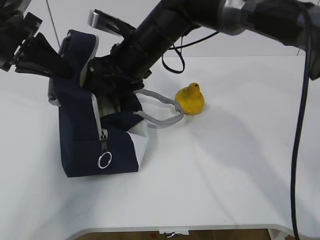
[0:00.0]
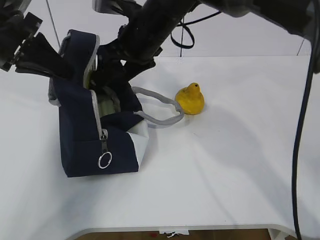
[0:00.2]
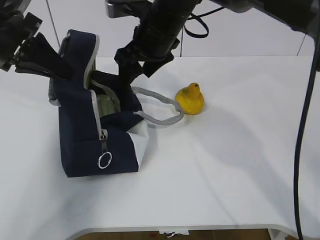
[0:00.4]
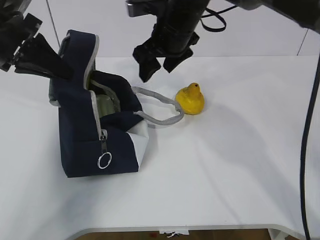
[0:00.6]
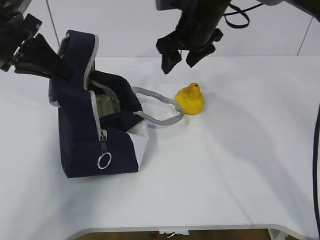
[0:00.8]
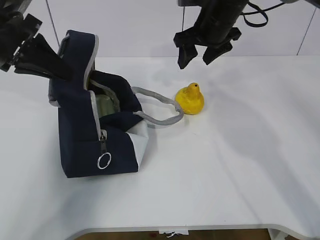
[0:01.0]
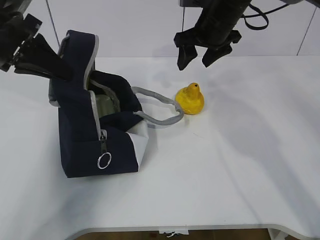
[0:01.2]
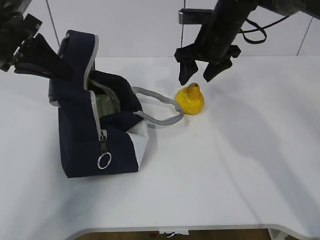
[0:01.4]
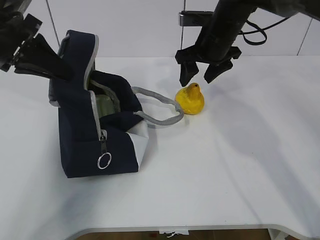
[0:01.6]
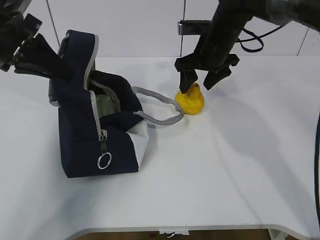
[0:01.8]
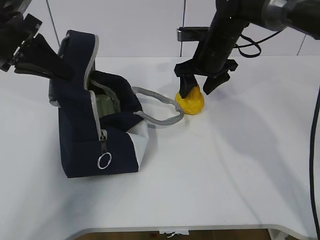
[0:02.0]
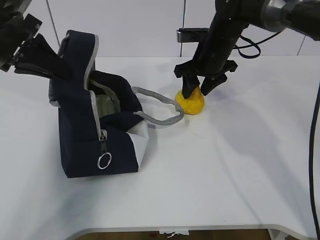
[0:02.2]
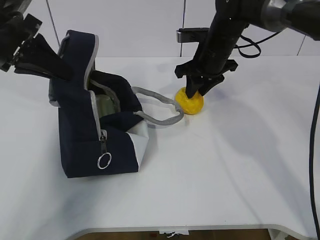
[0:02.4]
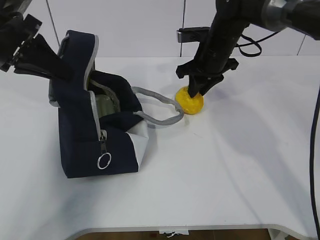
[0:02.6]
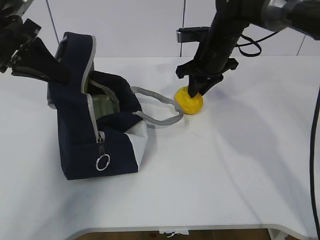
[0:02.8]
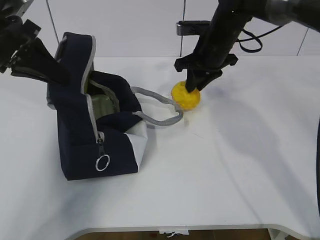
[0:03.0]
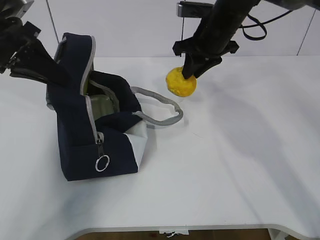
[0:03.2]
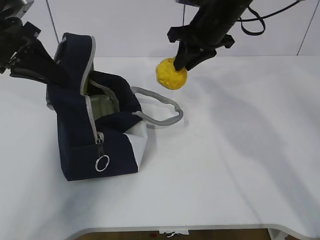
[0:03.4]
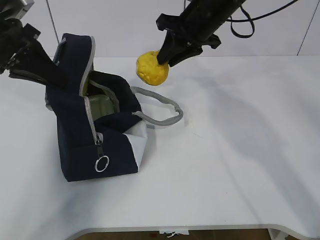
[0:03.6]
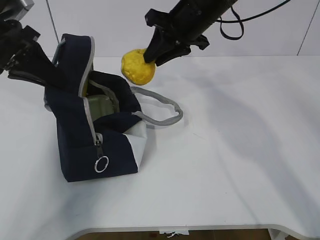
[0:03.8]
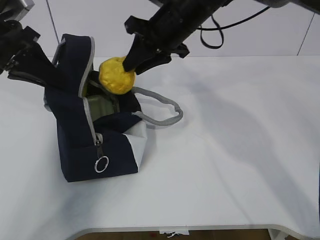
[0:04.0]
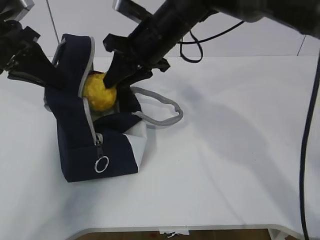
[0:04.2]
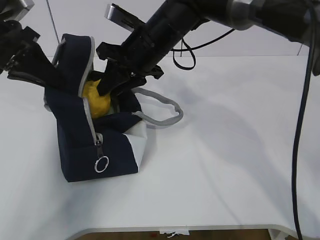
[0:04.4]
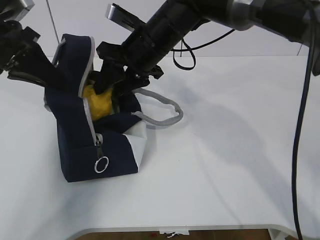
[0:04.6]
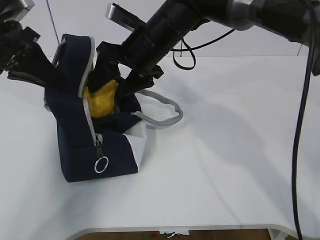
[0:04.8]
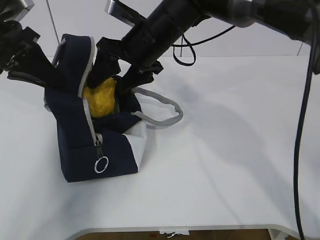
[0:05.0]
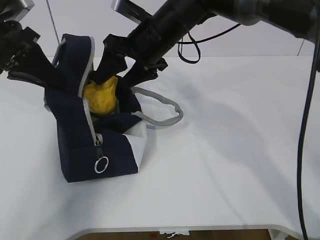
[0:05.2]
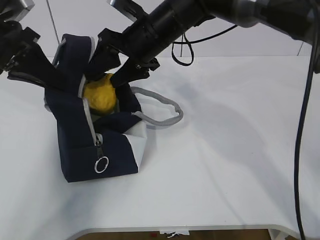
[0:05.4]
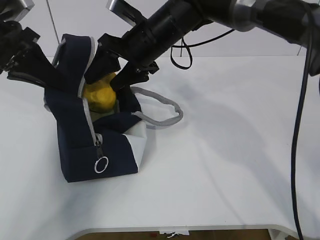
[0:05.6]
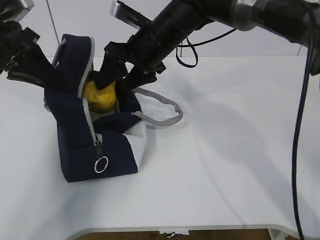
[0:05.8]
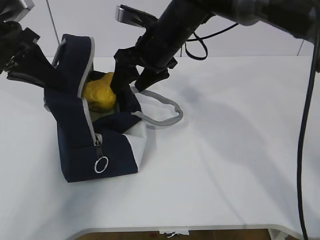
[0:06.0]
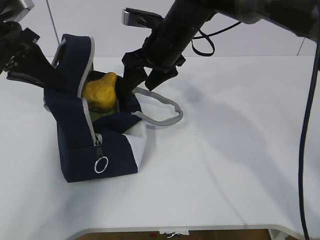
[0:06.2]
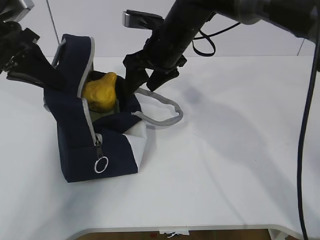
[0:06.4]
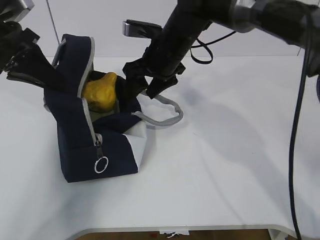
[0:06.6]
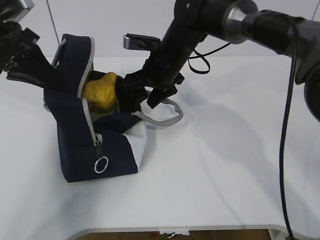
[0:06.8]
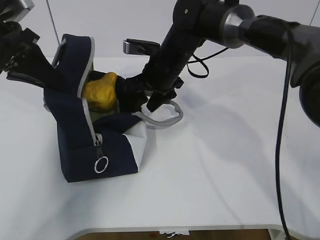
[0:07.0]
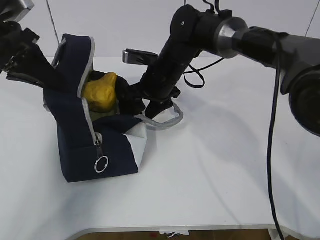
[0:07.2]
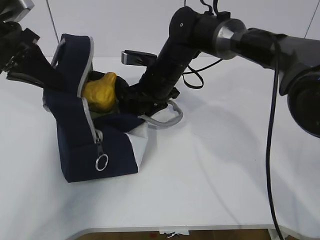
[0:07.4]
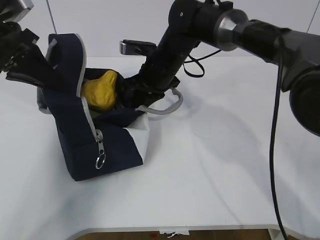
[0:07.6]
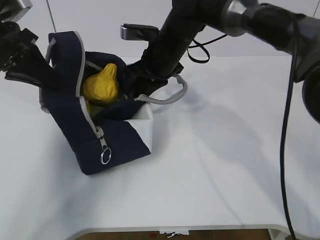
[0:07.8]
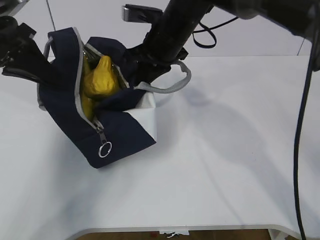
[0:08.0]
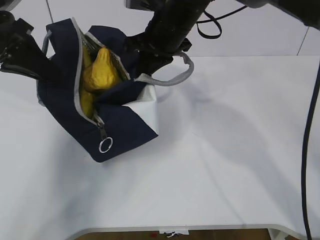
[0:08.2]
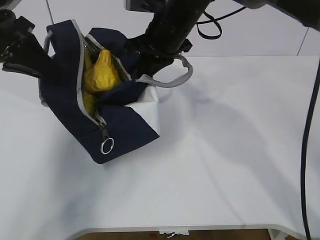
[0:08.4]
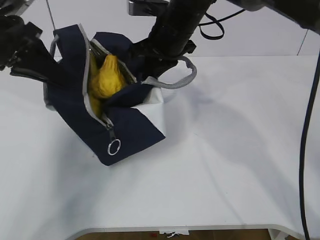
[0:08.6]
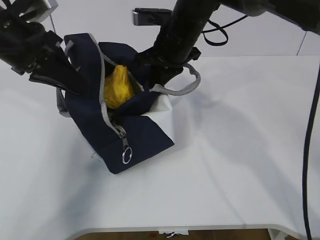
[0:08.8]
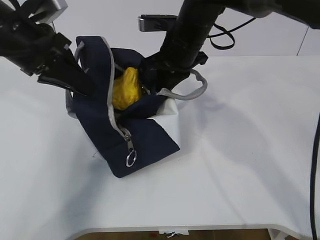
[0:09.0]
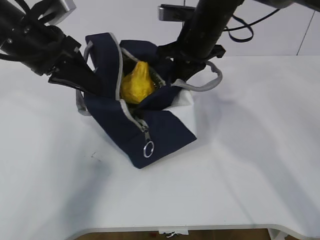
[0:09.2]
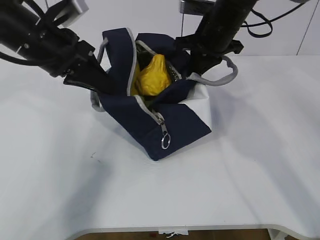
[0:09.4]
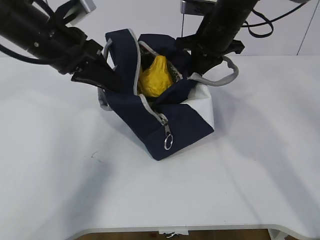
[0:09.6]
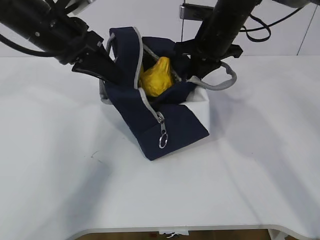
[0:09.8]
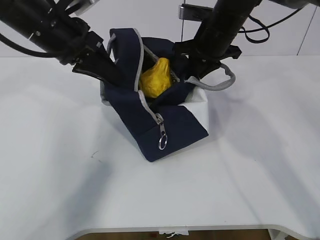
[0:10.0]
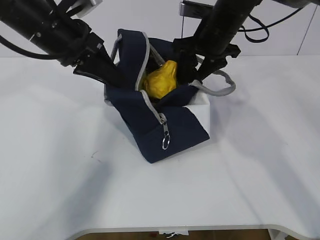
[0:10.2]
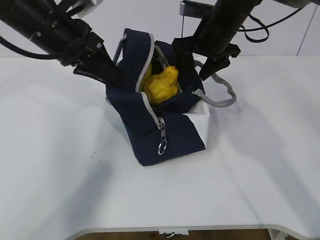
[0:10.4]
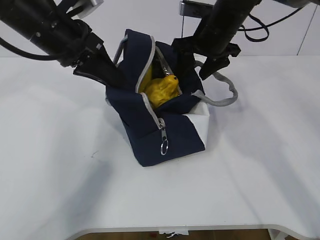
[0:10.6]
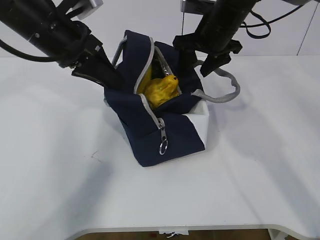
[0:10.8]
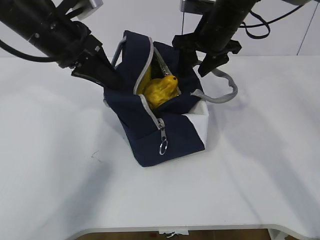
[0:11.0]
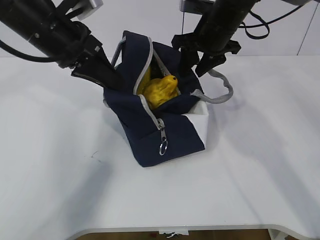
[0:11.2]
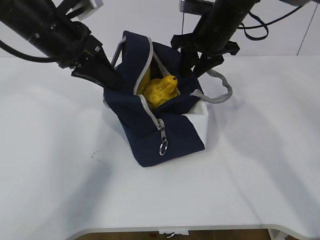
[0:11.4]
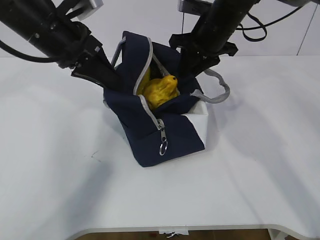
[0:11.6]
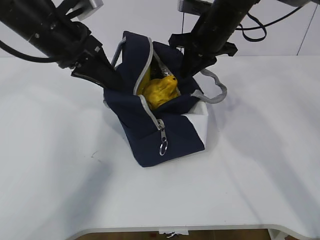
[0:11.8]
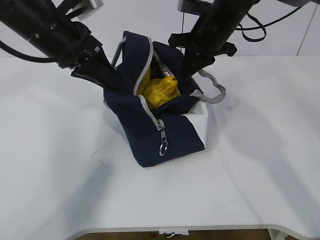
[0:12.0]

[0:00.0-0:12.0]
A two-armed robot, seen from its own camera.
Step, 0:01.0 to 0:05.6: Grab the lunch bag with your right hand.
Step, 0:05.8 to 0:09.8: Move the lunch bag to the right.
0:00.0 to 0:01.6: The right gripper shifts approximately 15 cm to the right and forward.
0:01.6 to 0:03.0: The right gripper closes.
0:03.0 to 0:04.4: The right gripper moves to the left and backward, approximately 15 cm.
0:04.4 to 0:06.0: The right gripper opens.
0:06.0 to 0:07.6: The right gripper goes roughly 5 cm downward, and closes.
0:07.6 to 0:09.0: The right gripper moves upward, roughly 5 cm. The left gripper goes approximately 5 cm to the right.
0:09.0 to 0:10.4: The right gripper is displaced to the right by roughly 5 cm, and opens up. The left gripper shifts by roughly 5 cm.
0:10.4 to 0:12.0: The right gripper closes up.

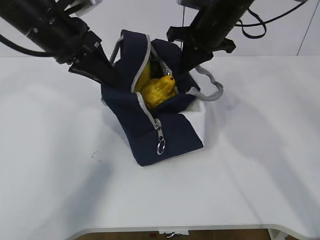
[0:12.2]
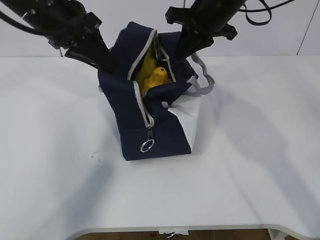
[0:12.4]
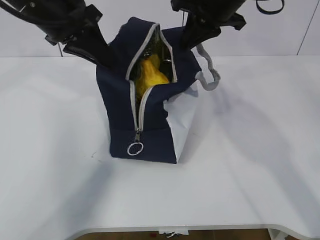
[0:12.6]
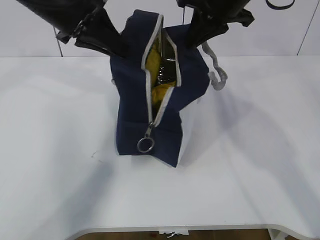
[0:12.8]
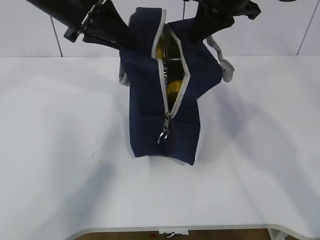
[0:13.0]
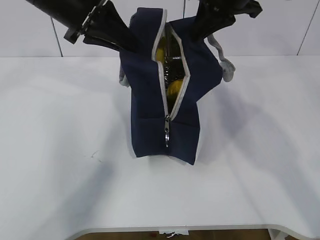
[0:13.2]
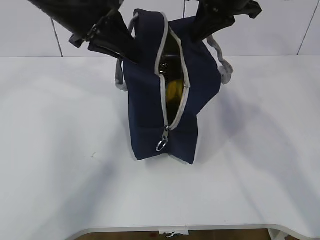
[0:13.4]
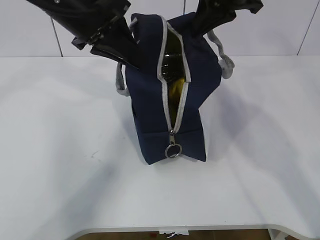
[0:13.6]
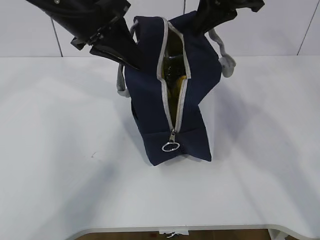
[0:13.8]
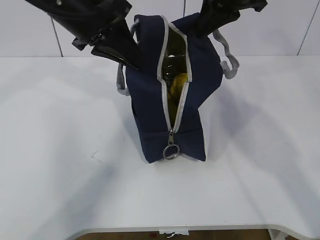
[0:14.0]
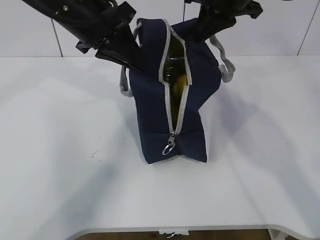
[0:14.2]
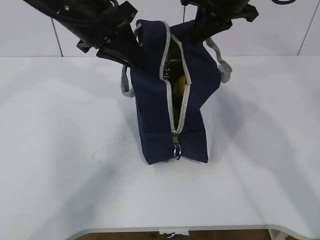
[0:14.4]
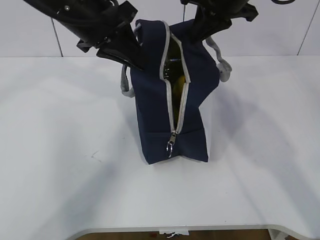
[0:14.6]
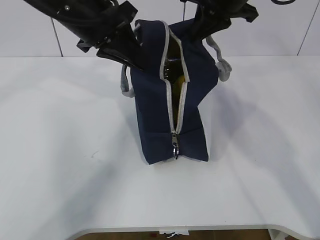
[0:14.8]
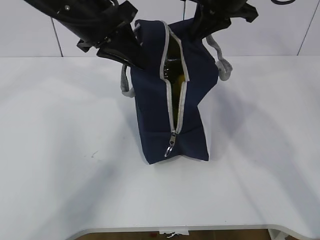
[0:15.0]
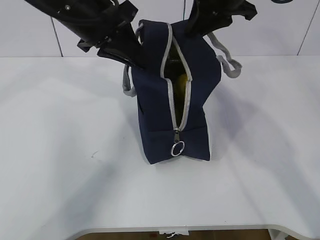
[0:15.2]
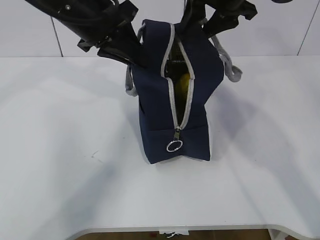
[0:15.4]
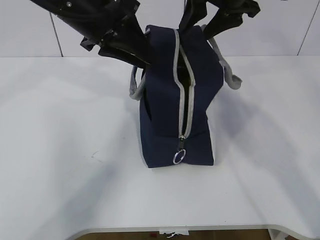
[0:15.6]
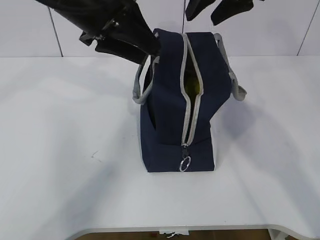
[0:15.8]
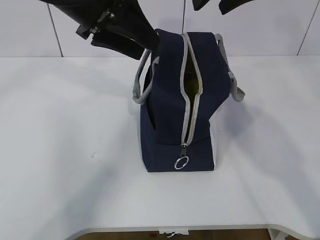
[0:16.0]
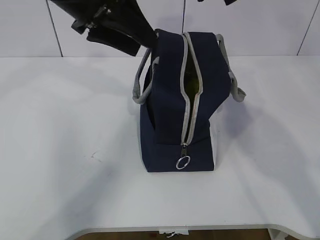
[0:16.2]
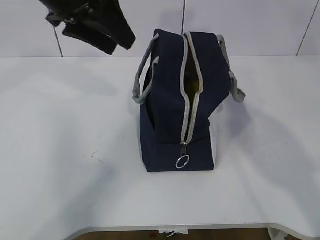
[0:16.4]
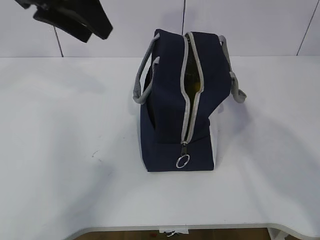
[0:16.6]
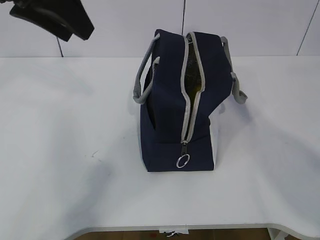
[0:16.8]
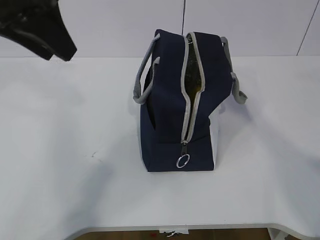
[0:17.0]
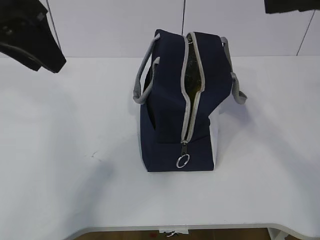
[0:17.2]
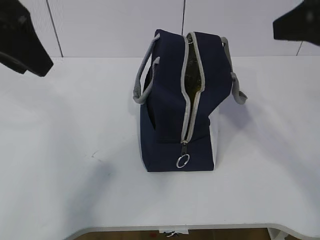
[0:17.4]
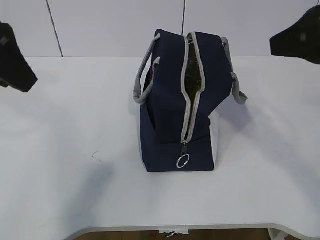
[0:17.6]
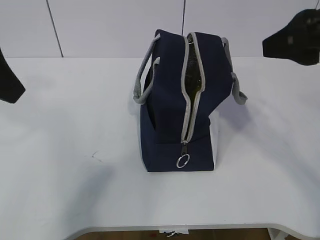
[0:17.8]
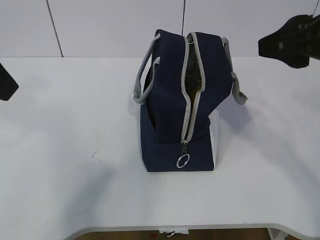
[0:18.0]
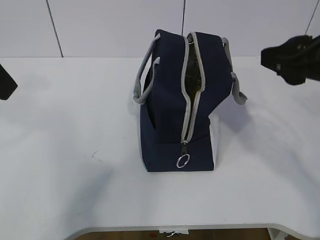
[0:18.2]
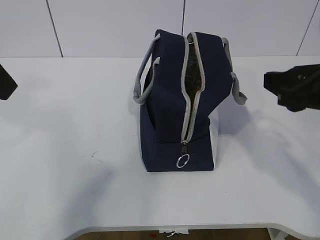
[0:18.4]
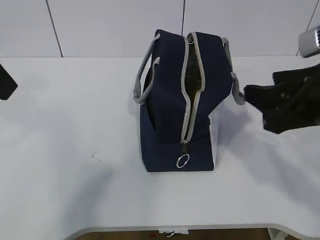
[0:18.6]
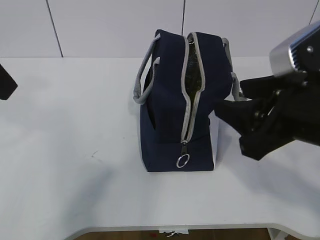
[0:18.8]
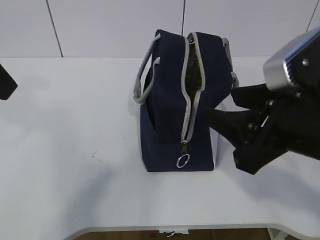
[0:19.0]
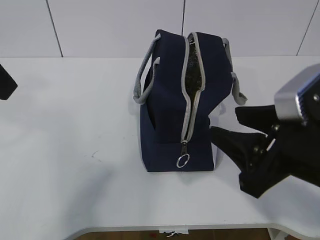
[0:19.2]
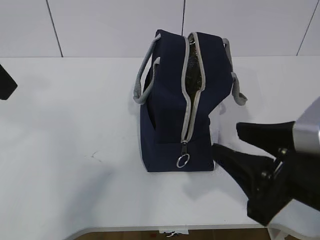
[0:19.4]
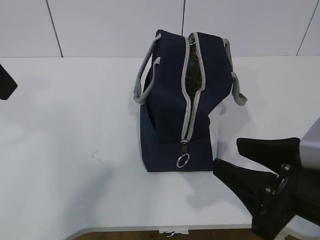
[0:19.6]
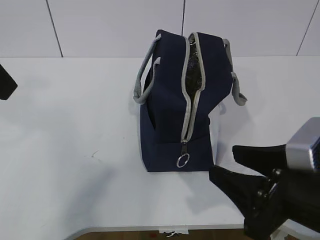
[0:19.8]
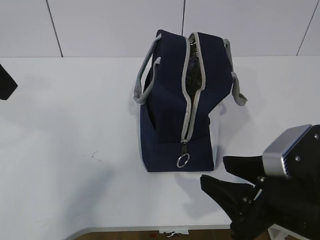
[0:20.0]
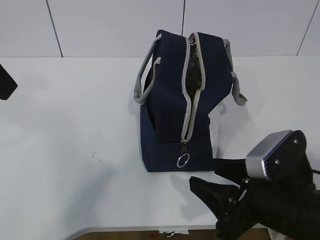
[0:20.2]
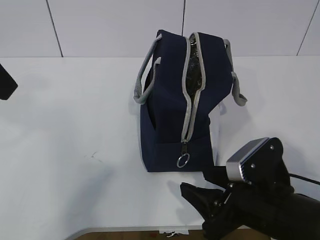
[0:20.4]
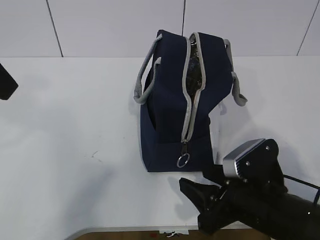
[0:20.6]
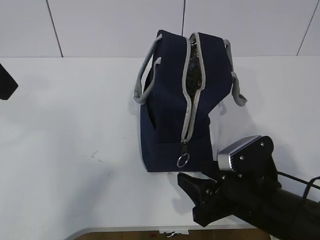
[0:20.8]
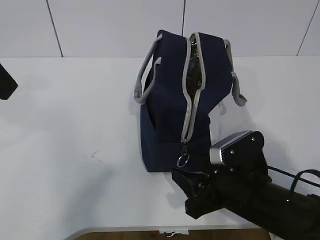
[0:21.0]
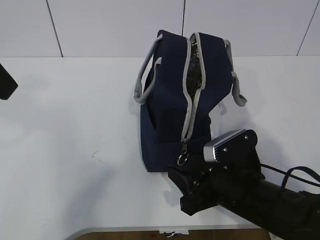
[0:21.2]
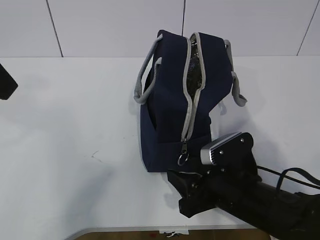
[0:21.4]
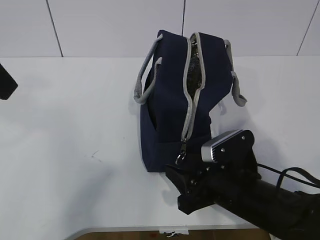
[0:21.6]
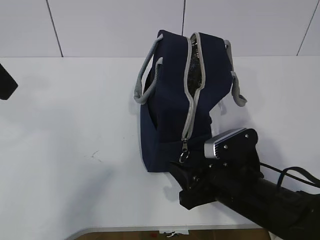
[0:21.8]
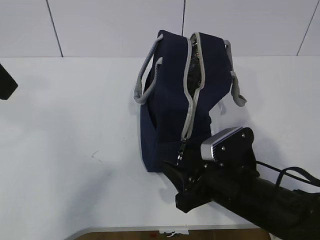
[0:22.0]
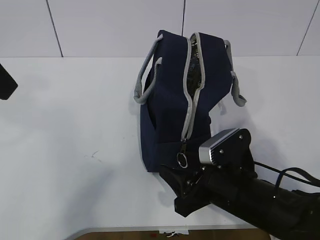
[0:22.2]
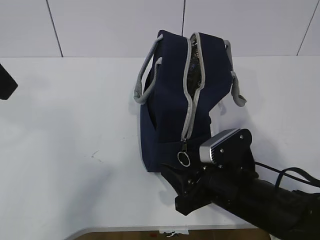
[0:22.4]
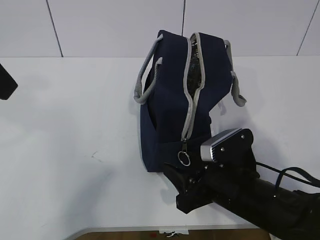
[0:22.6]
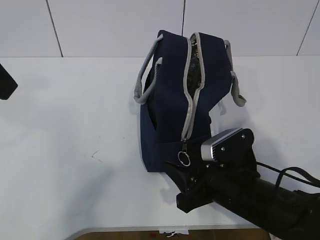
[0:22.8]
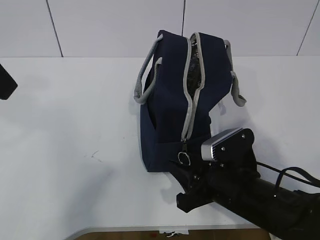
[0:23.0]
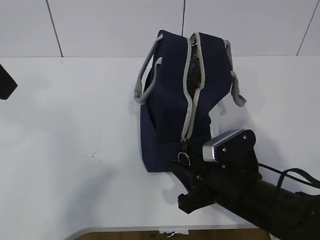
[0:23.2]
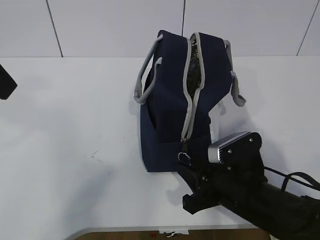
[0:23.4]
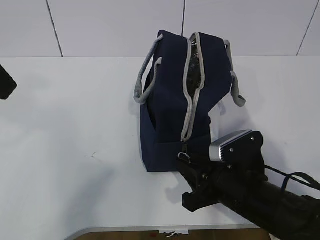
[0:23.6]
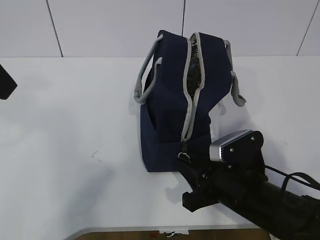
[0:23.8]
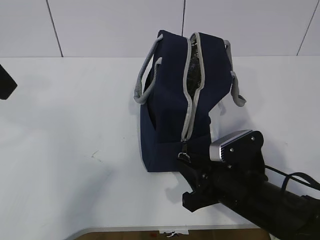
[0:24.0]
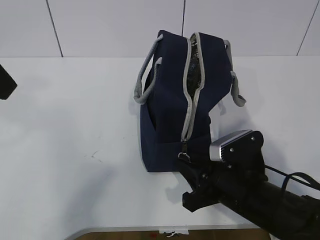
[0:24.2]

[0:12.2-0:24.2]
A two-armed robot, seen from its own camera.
Step, 0:12.2 to 0:22.0: Grab the lunch bag with your left hand.
0:12.2 to 0:13.8: The right gripper heads upward and backward, covering roughly 10 cm. The left gripper shifts by some 5 cm.
0:13.8 to 0:15.2: The grippers stay close to where they were, moving slightly.
0:15.2 to 0:16.6: The right gripper shifts approximately 15 cm upward and backward, and opens; the left gripper is displaced upward by approximately 5 cm, and opens.
0:16.6 to 0:18.2: The left gripper is displaced backward and to the left by some 15 cm. The right gripper moves downward and backward, about 20 cm.
0:18.2 to 0:19.8: The right gripper travels downward and backward by some 15 cm.
0:19.8 to 0:21.2: The right gripper moves downward and forward, some 10 cm.
0:21.2 to 0:22.6: The grippers stay close to where they were, moving slightly.
0:22.6 to 0:24.2: The right gripper closes its fingers.
